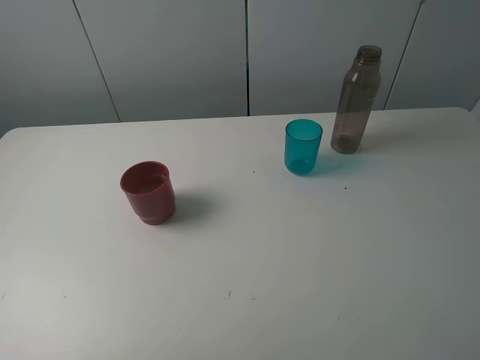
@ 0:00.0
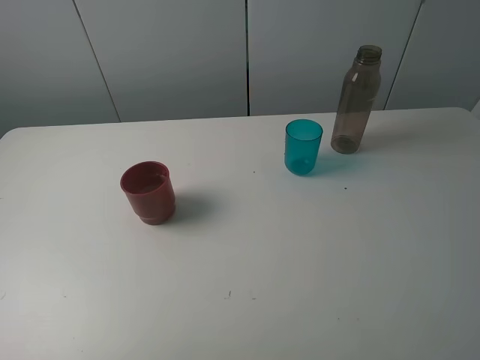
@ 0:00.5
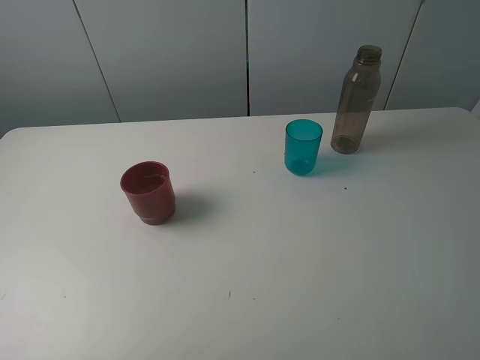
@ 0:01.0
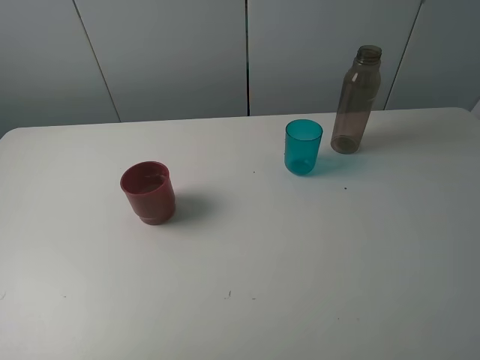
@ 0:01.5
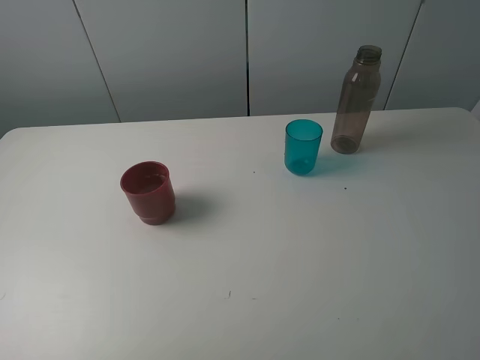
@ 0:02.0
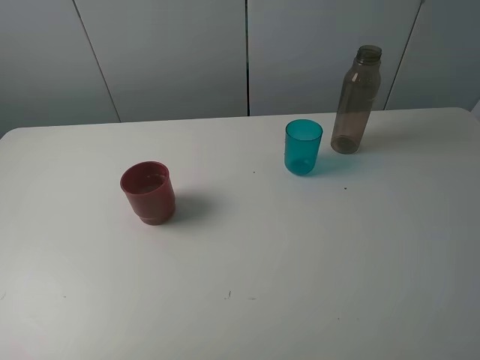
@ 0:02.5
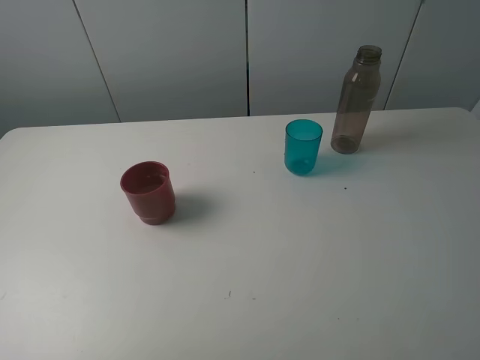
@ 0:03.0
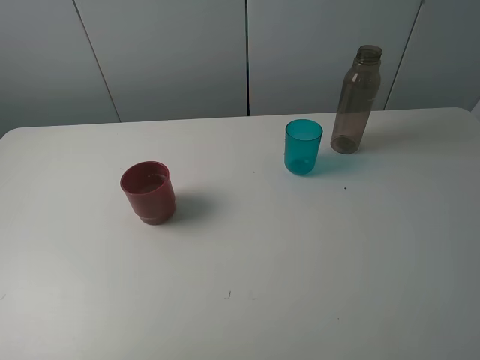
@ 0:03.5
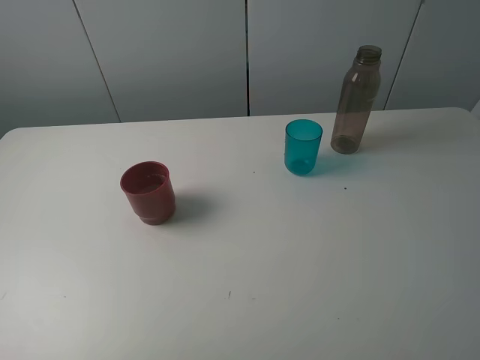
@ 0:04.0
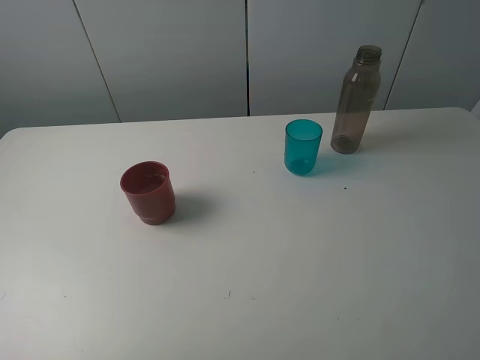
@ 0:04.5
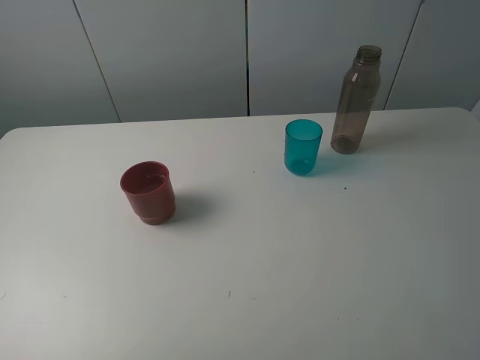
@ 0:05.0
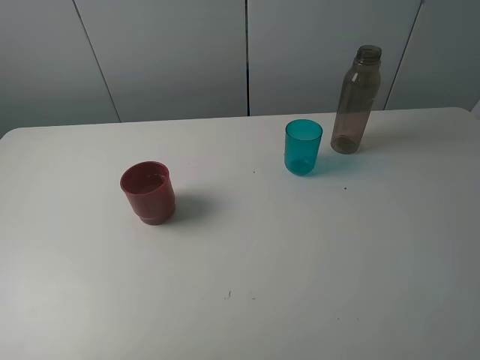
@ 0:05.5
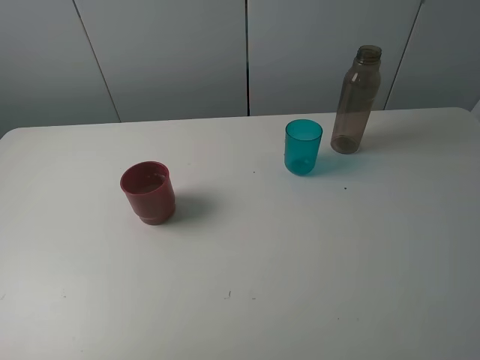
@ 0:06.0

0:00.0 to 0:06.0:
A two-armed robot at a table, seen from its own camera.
Task of the whole recording: pick up the bottle and pour water into the cup, then pick up the cup containing water and pour it into another cup.
0:02.0 to 0:06.0: Both grippers stay put.

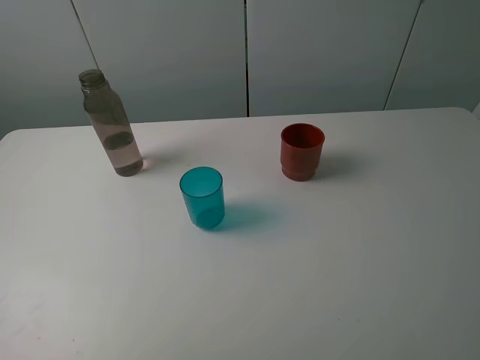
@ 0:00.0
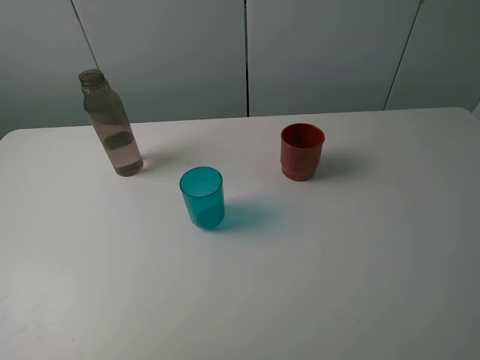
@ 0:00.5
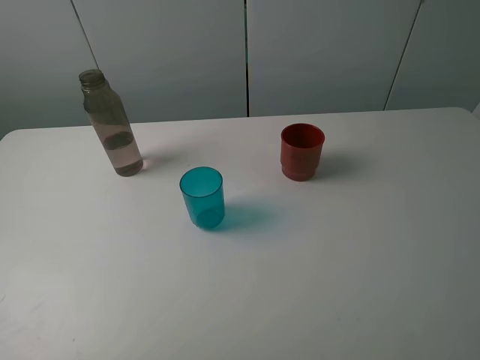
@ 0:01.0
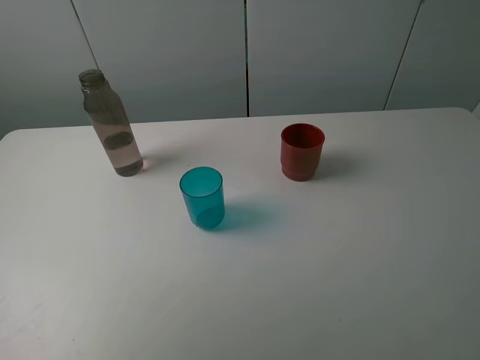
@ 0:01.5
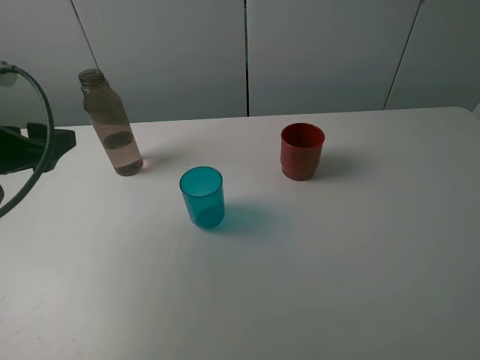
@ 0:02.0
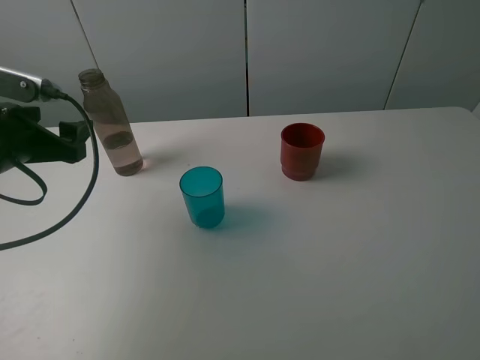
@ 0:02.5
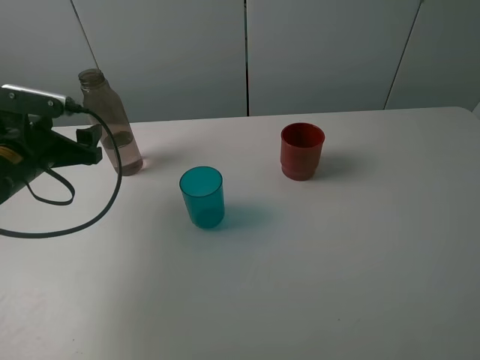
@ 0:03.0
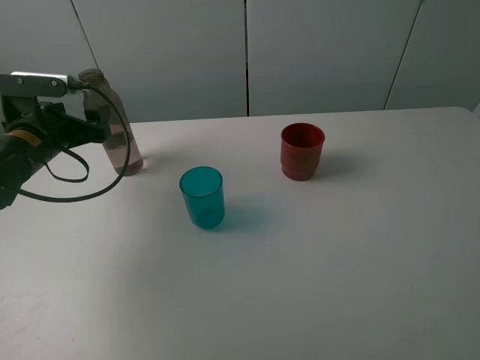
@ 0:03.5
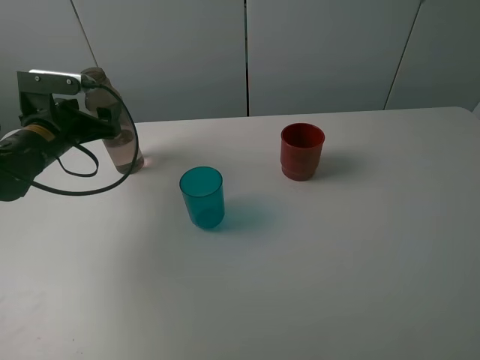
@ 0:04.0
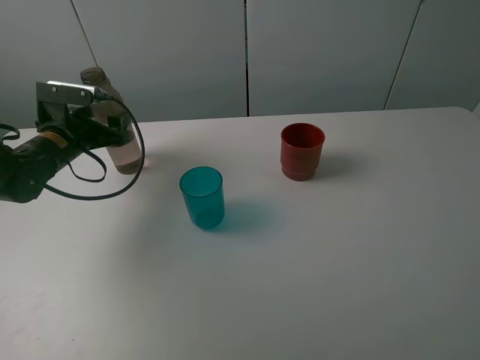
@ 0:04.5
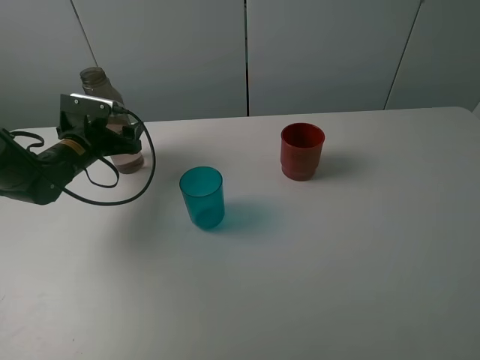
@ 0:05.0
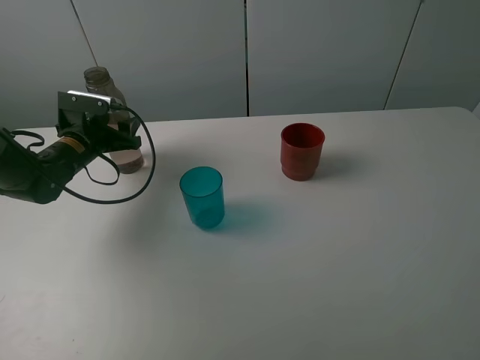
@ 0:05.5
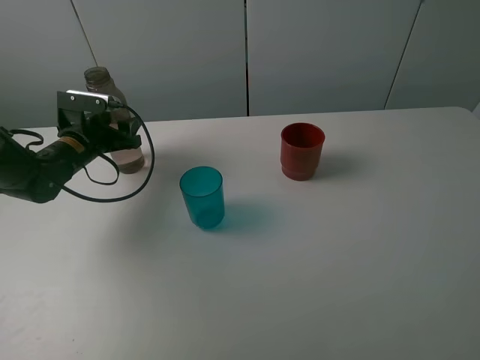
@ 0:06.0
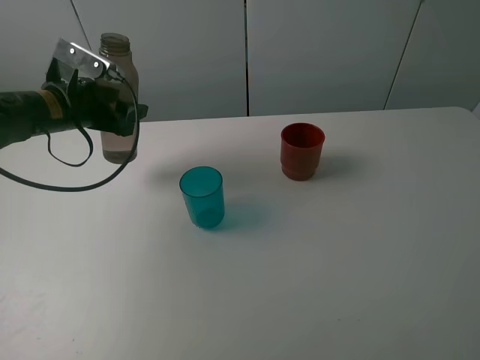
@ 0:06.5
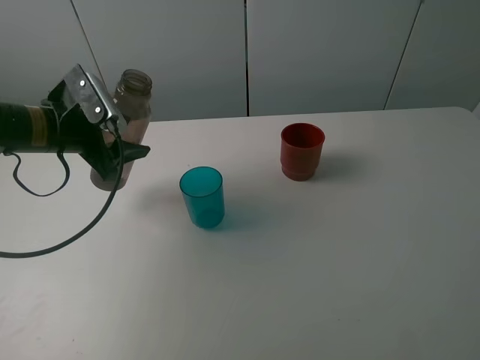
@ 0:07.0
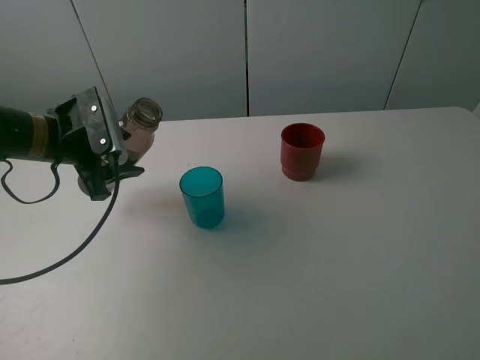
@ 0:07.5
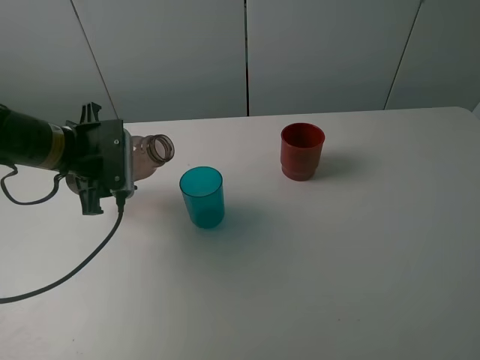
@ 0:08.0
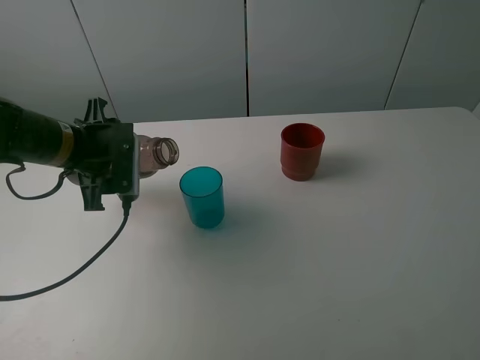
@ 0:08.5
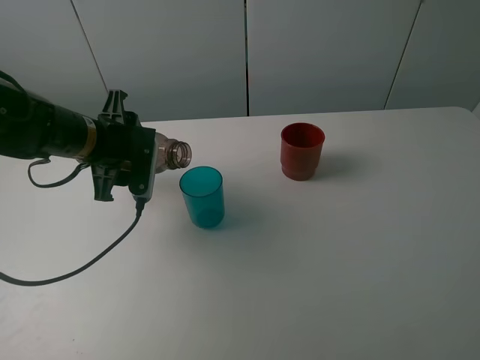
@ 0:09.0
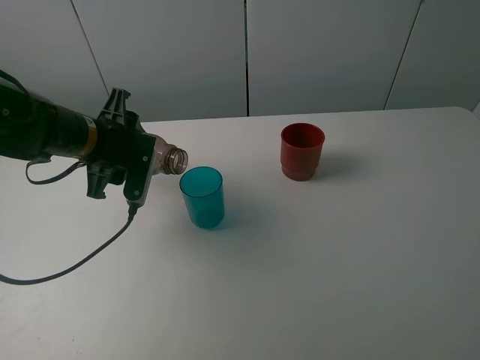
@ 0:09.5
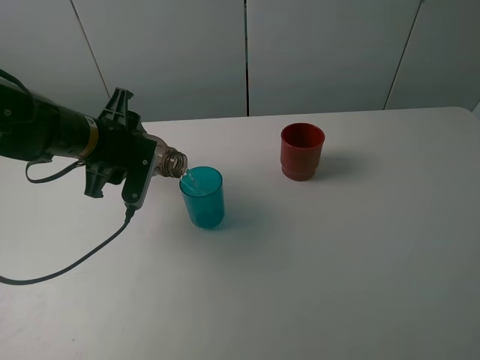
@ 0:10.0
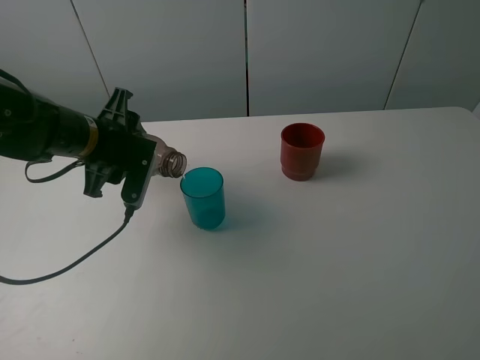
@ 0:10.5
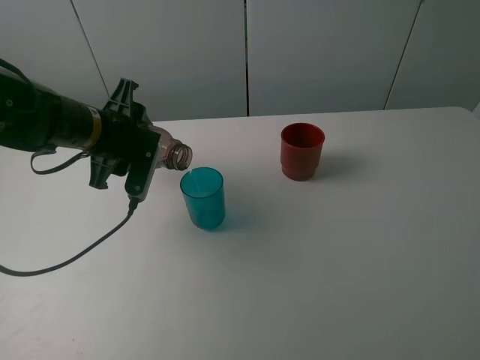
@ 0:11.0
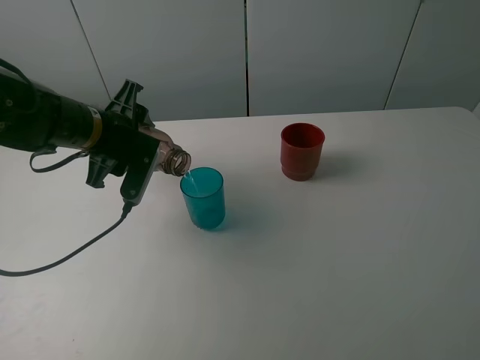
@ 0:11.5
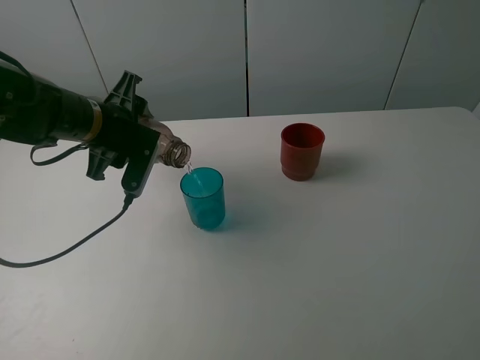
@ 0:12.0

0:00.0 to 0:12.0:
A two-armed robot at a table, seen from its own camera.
Task of the whole recording: pick up the bottle and pour water into the cup, then pick up the cup containing water and pour it into another cup.
0:00.0 to 0:02.0: The left gripper moves forward, some 20 cm.
0:02.0 to 0:04.0: The left gripper moves forward and downward, roughly 15 cm.
0:04.0 to 0:06.0: The left gripper shifts by about 5 cm, and closes up.
0:06.0 to 0:08.0: The left gripper is displaced backward and upward by some 10 cm.
0:10.0 to 0:12.0: The grippers make only small movements.

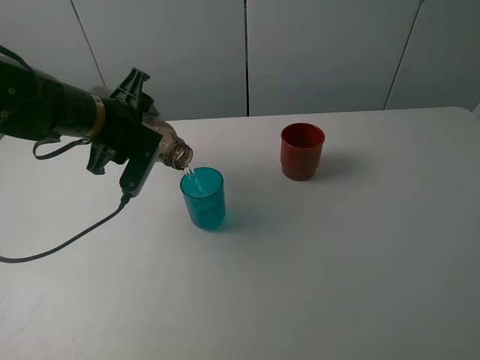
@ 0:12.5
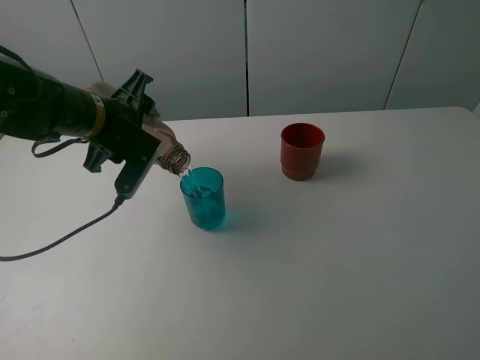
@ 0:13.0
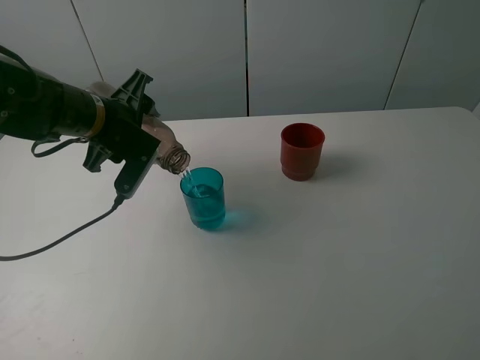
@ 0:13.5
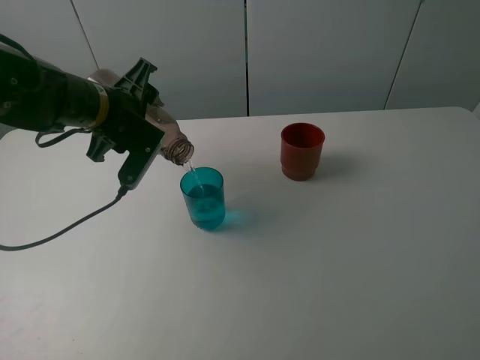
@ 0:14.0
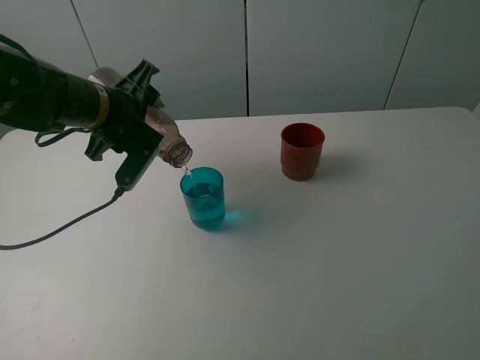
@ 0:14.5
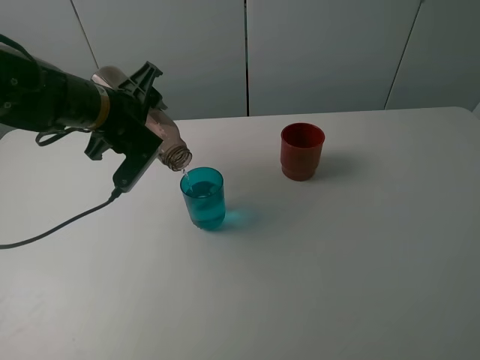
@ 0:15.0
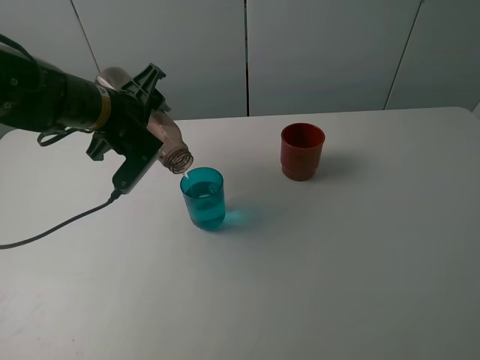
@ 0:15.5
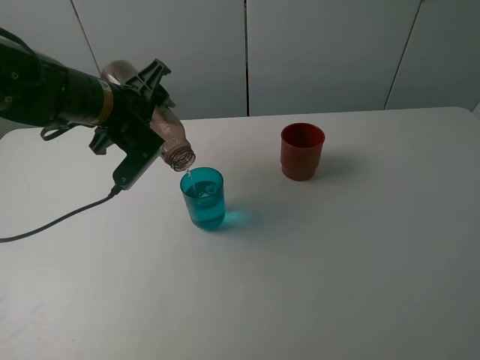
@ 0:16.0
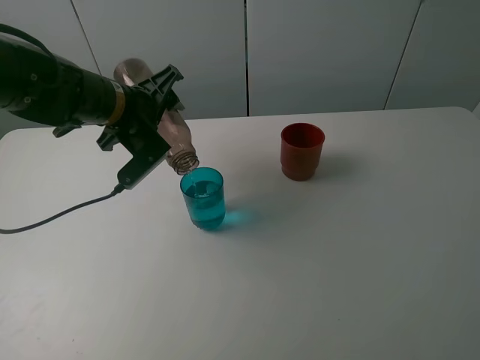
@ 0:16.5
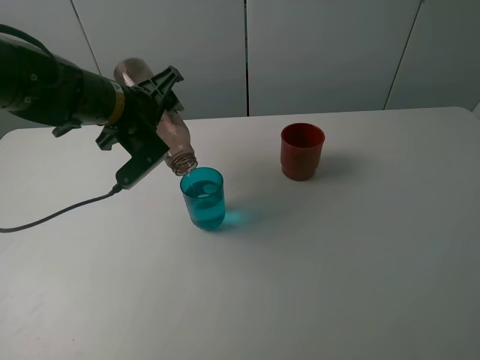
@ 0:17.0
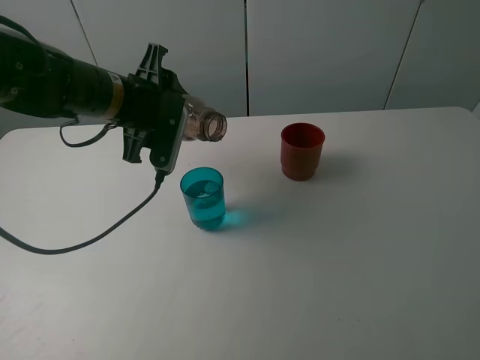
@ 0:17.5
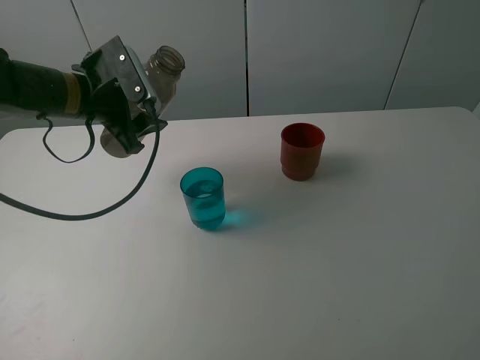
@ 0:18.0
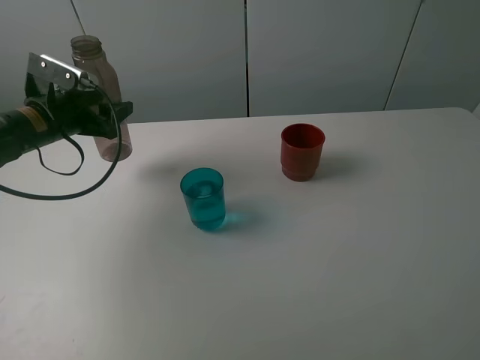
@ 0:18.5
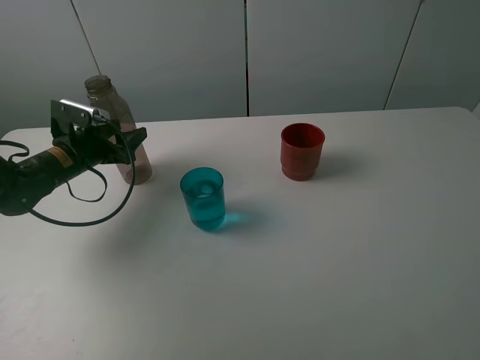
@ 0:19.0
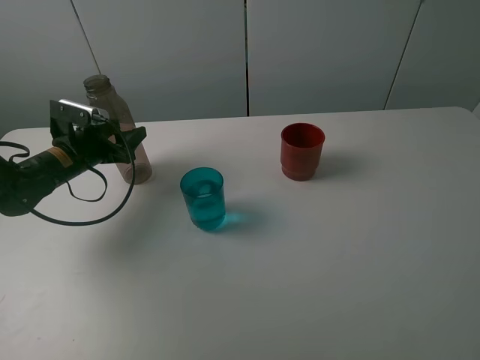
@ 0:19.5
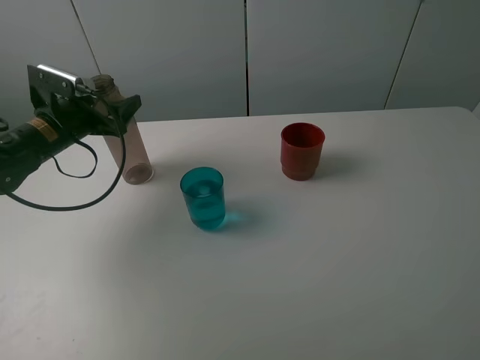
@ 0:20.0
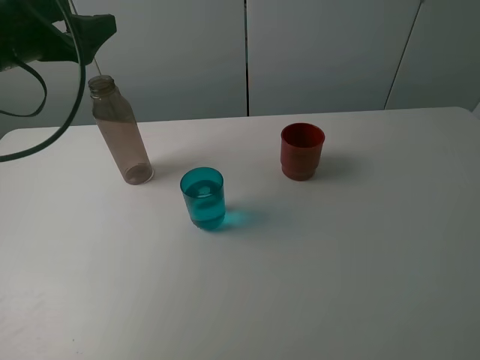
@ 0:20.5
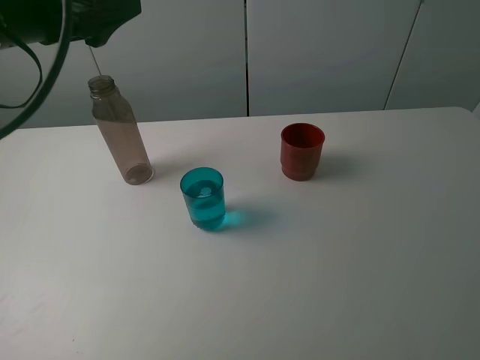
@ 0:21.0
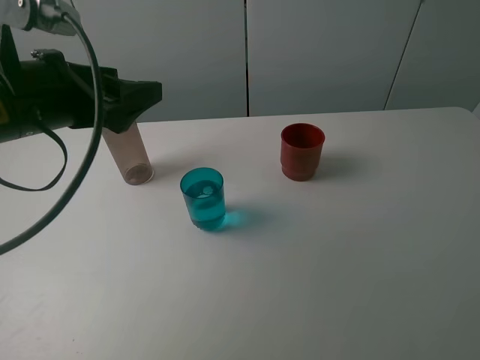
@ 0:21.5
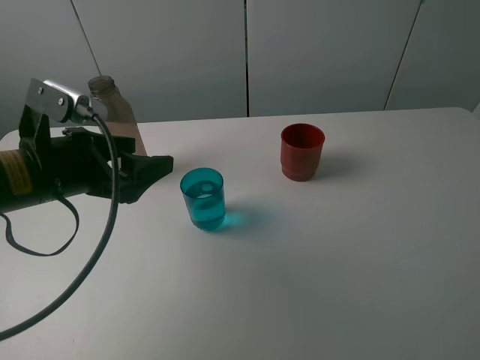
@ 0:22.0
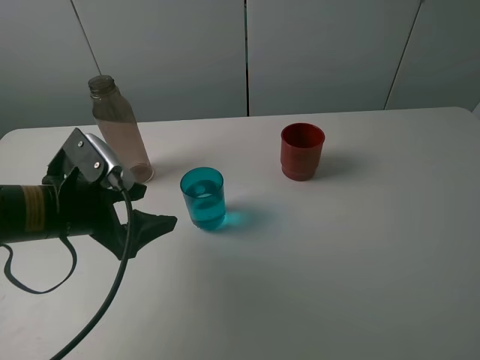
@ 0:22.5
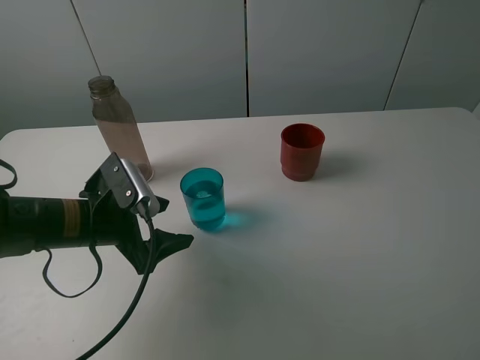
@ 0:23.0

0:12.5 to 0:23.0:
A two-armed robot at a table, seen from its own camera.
Task of the whole recording: pick up the bottle and pour water into the cup, then pick up the cup containing water and pour it into another cup.
0:12.5 to 0:14.5: The grippers move only a little.
0:14.5 to 0:16.5: There are only small adjustments of the grippers.
0:16.5 to 0:19.0: The left gripper is displaced to the left and downward by approximately 15 cm.
0:19.0 to 0:21.0: The left gripper shifts approximately 25 cm upward and backward, and opens.
0:21.0 to 0:23.0: The left gripper moves downward, approximately 20 cm.